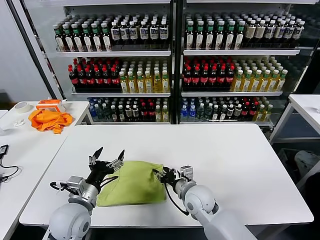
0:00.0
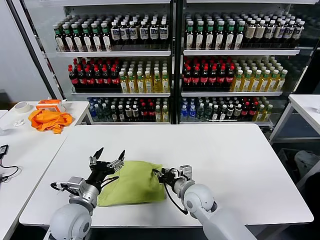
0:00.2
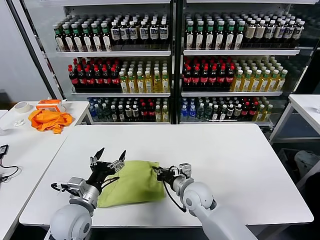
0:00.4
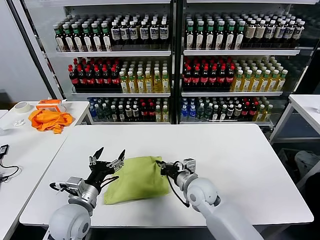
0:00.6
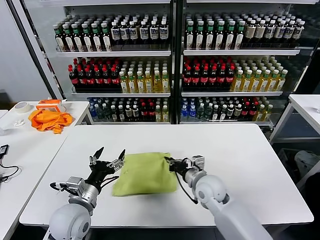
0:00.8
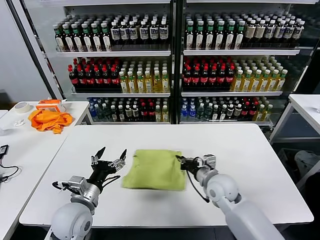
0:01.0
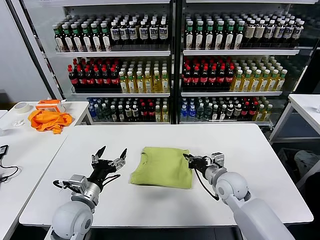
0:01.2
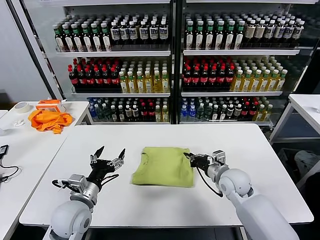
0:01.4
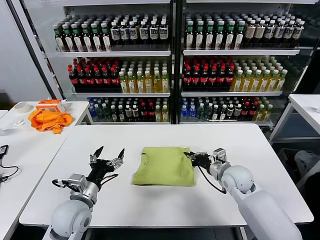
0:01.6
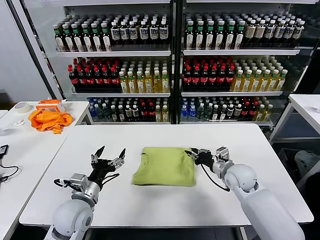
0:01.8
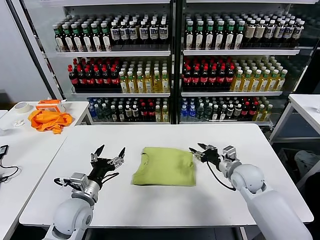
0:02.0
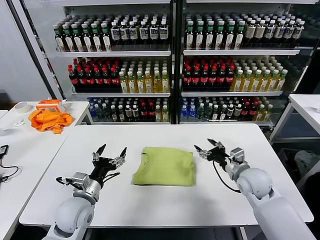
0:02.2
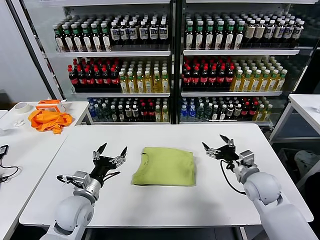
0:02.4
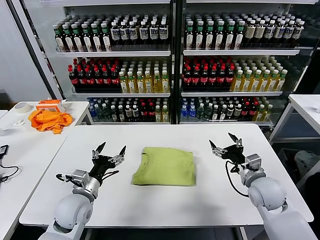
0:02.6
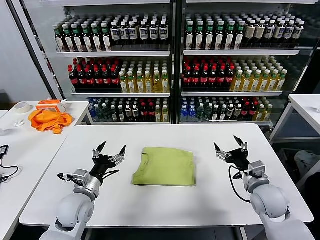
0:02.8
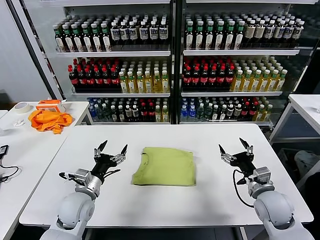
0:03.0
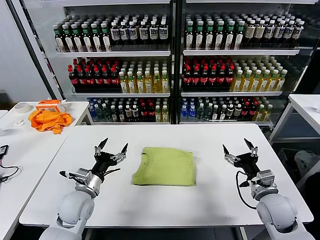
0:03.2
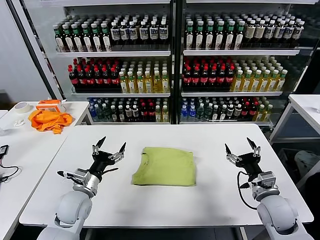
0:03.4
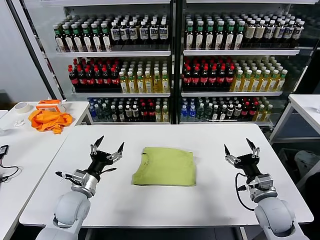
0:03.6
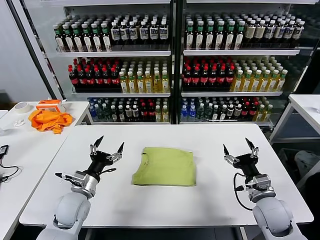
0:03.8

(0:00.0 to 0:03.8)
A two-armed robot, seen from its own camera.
Task of the whole recording: fold and organize the clothes.
Step, 0:00.0 - 0:01.8: Drag the clothes to the center of the table.
0:00.0 - 0:01.2: The right gripper heads to the right, covering roughly 10 cm, and closes up.
0:01.2 - 0:02.6: The right gripper is displaced to the right by about 10 cm, and opens up.
0:02.6 - 0:03.8: The right gripper is displaced backward by roughly 5 cm.
